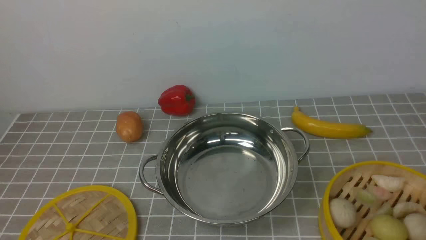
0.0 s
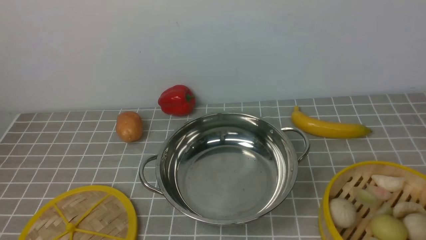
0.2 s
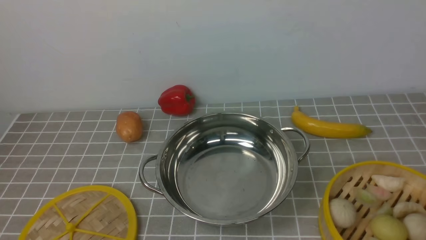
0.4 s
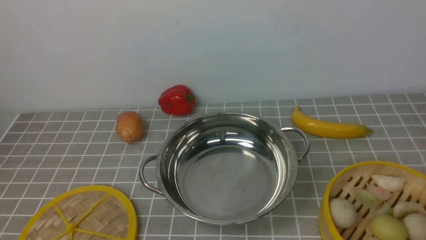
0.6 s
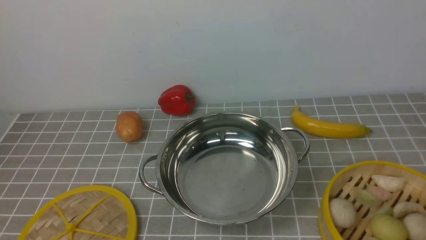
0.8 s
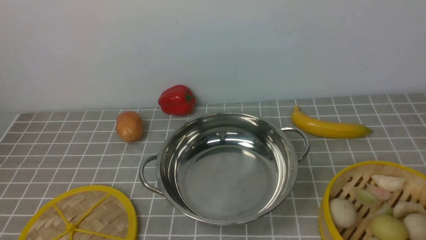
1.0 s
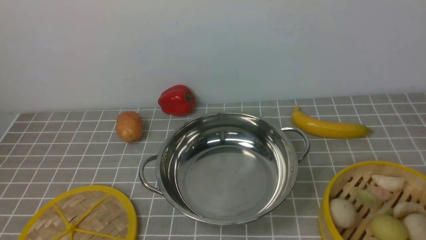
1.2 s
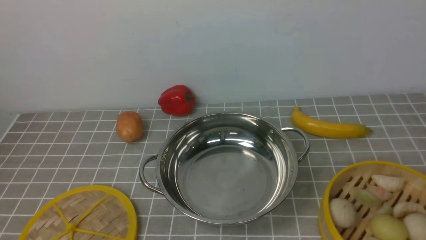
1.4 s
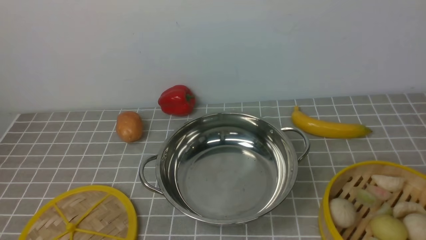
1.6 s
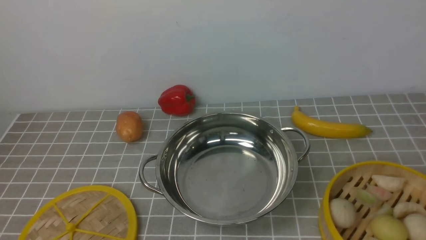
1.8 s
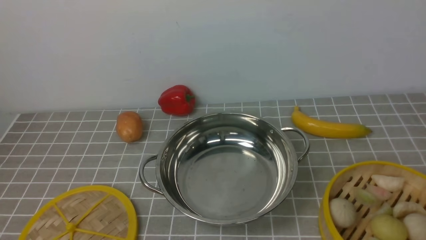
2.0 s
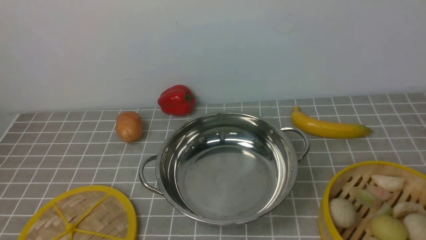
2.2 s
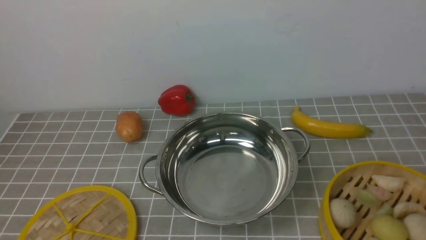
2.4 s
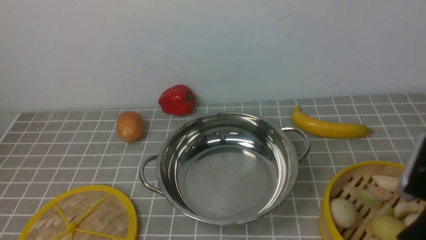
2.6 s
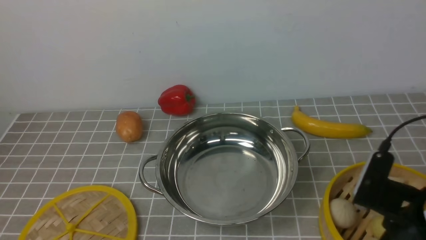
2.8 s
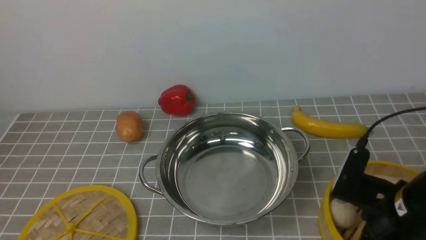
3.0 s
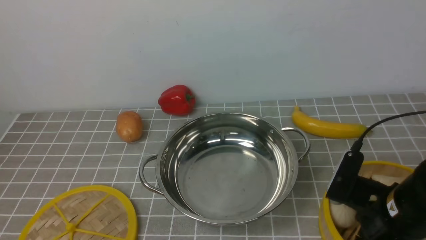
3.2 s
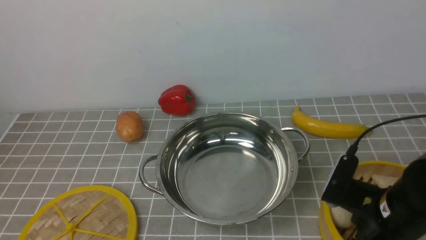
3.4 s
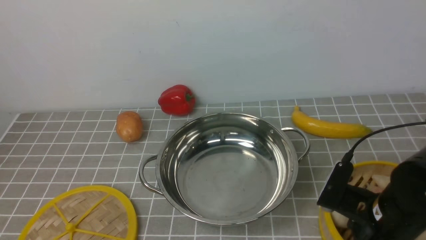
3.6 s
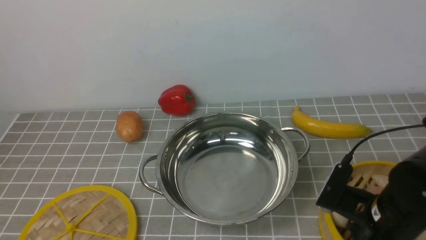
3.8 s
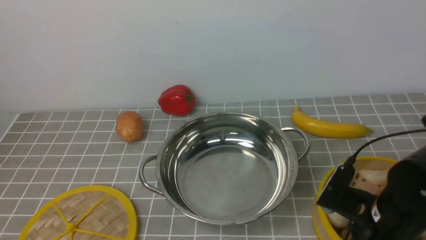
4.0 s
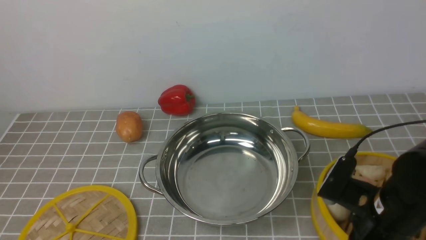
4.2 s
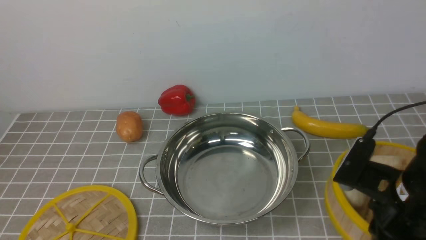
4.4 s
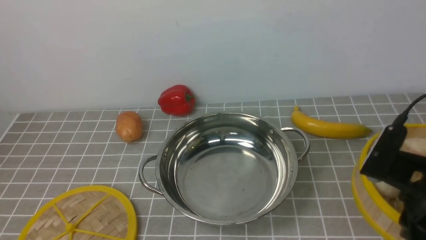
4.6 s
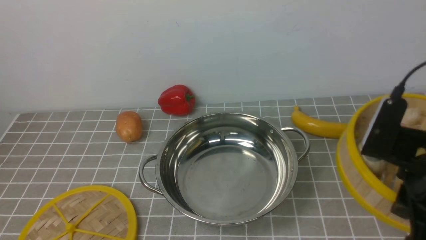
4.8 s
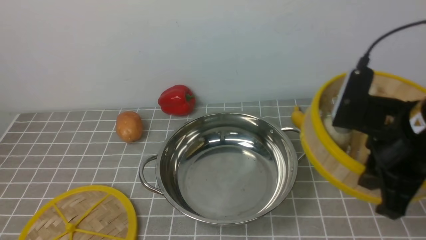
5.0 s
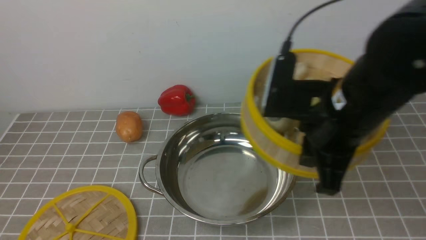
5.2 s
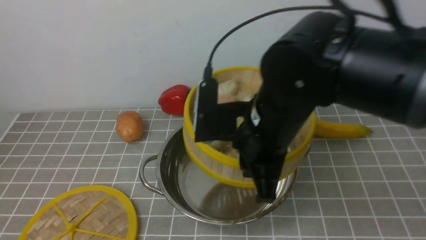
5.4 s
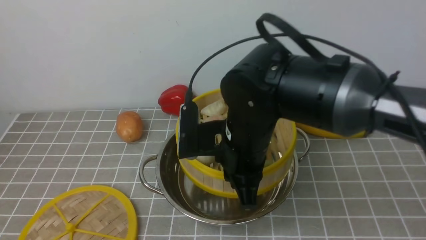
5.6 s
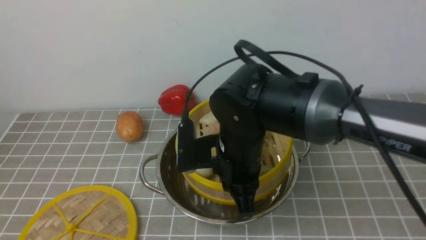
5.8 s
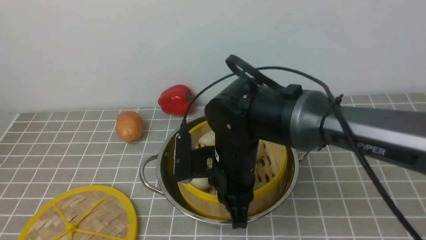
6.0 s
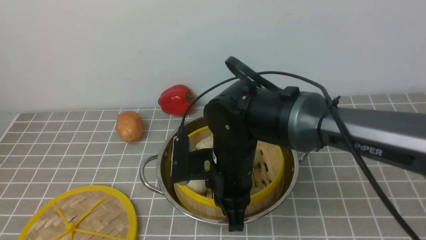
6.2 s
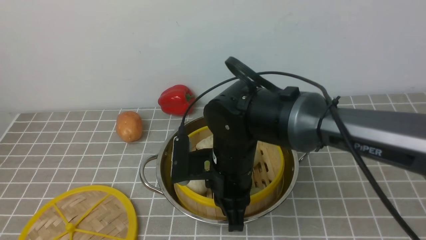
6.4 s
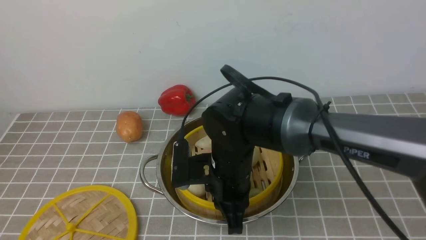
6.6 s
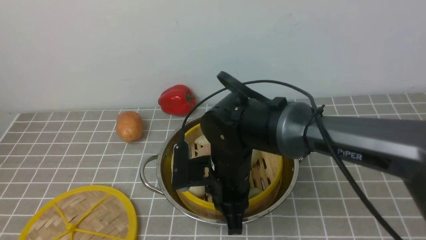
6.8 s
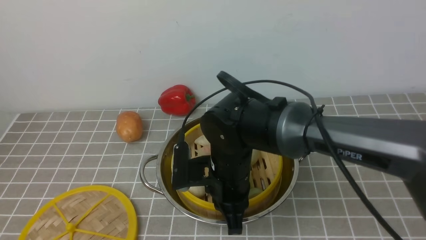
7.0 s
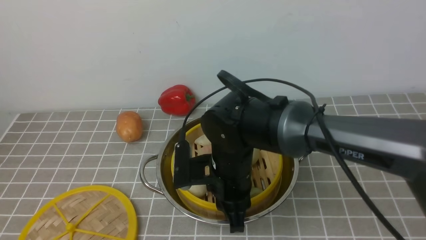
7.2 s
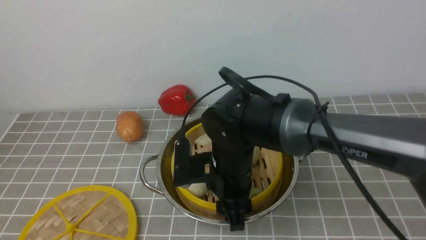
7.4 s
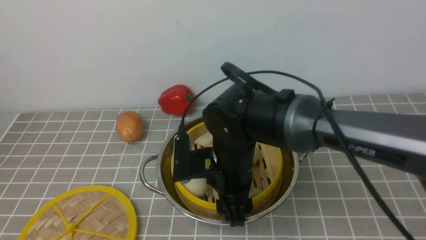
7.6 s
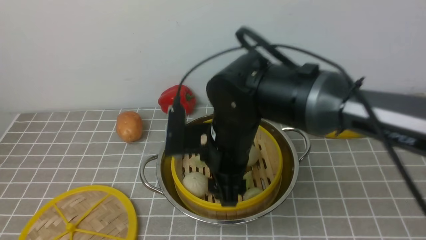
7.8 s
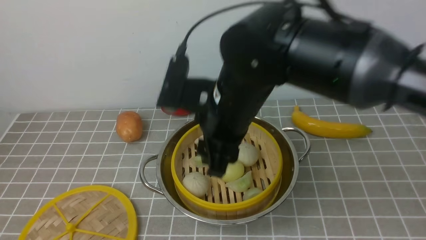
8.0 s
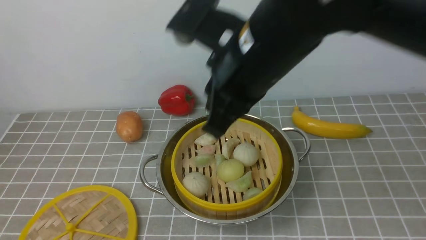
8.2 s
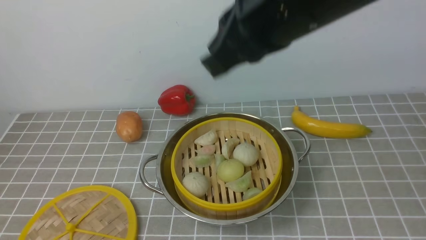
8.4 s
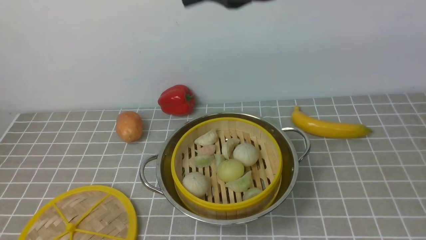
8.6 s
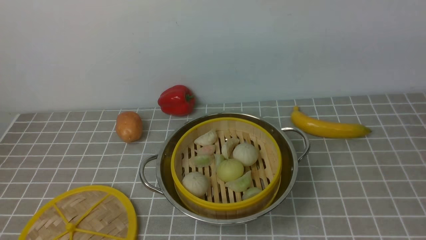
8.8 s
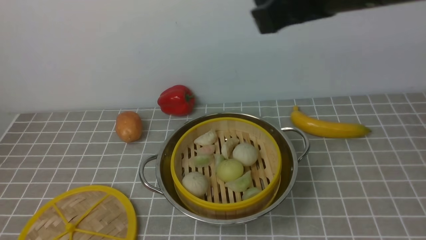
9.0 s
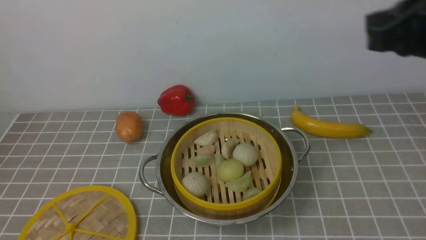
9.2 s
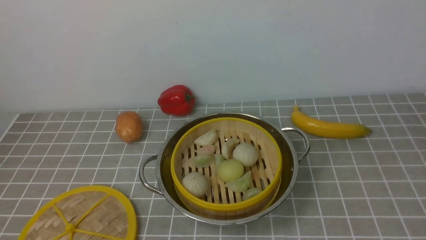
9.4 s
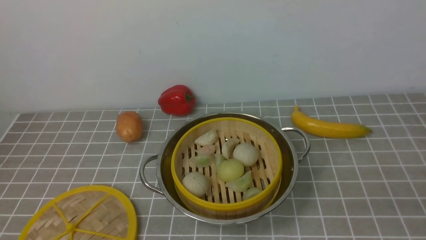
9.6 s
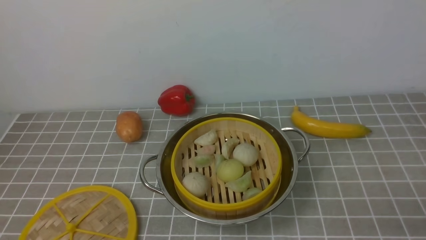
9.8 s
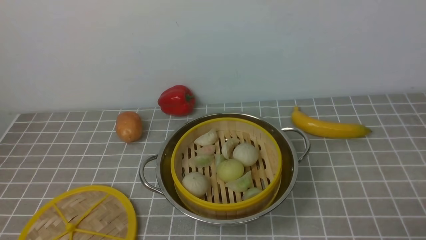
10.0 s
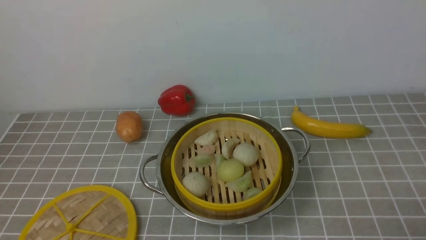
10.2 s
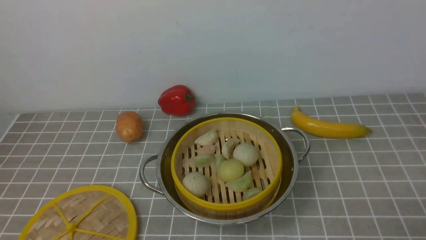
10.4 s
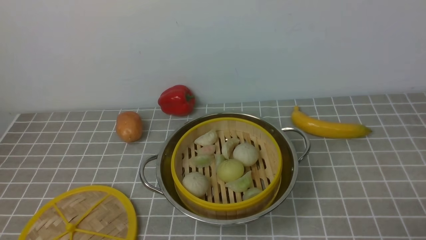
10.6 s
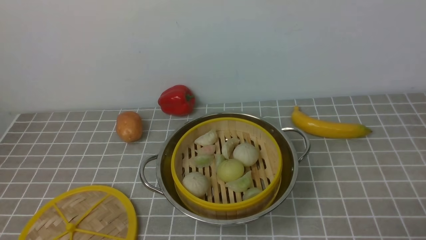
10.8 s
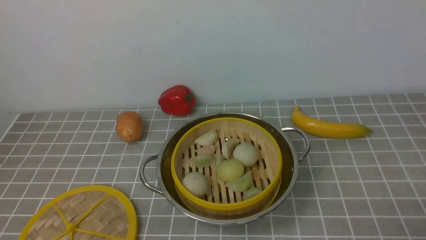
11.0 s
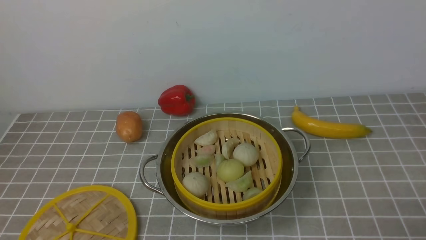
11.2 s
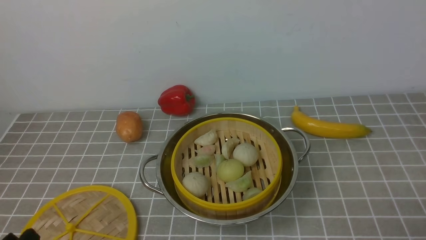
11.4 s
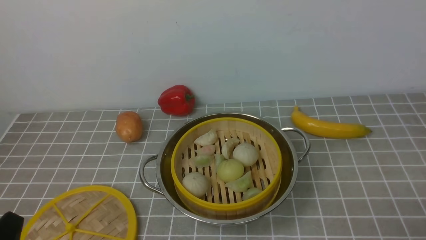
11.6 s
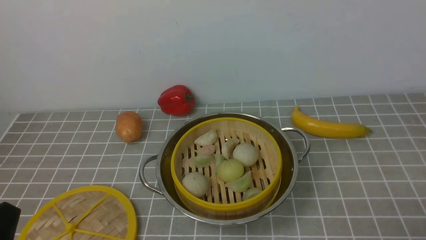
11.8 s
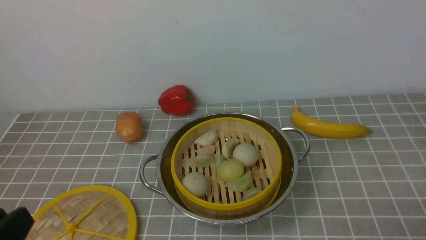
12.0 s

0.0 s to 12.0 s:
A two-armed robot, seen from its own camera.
Task of the whole recording: place the steamer in the pot on the grey tablecloth, and put the lid on the steamer.
Step, 0.0 to 4.4 s: use the right arm to lift the steamer closest to it.
Step, 4.6 to 7.6 s: use the right arm to put the steamer into the iron steamer pot in the middle.
1.6 to 3.0 s: The right gripper moves forward, downward and to the left, about 20 cm.
3.0 to 4.4 s: The right gripper closes up.
4.4 to 6.0 s: The right gripper heads to the left and forward, covering approximately 20 cm.
6.0 to 7.6 s: The right gripper opens its fingers.
7.6 to 9.0 s: The right gripper shifts about 30 cm upward and to the right, and closes.
9.0 to 10.4 s: The right gripper moves downward, to the right and backward, roughly 40 cm.
10.4 to 12.0 s: The left gripper is displaced upward by approximately 10 cm.

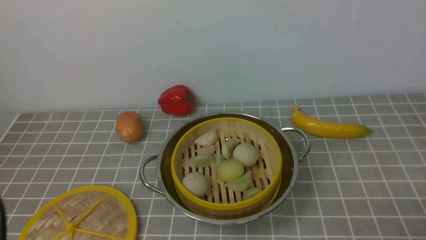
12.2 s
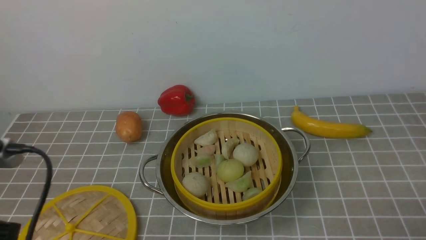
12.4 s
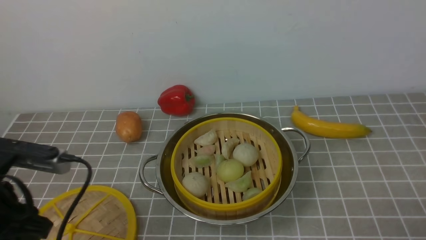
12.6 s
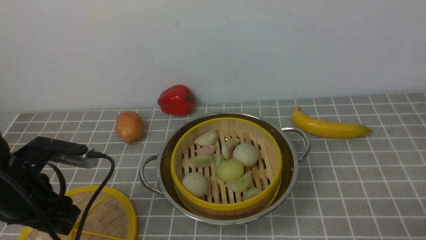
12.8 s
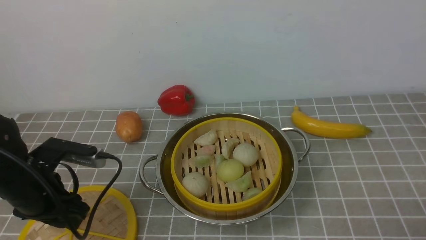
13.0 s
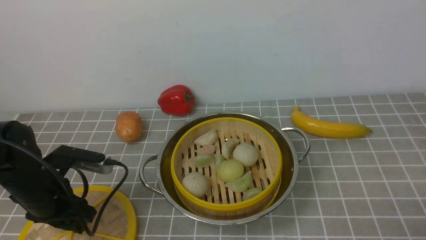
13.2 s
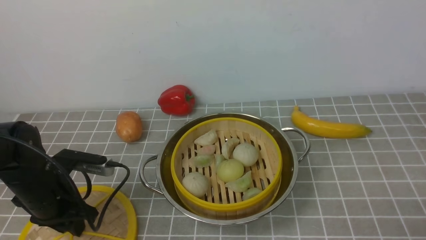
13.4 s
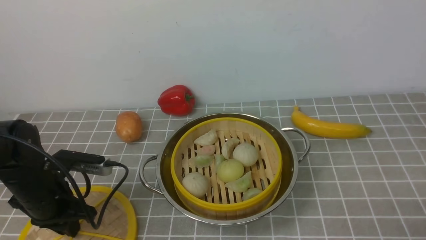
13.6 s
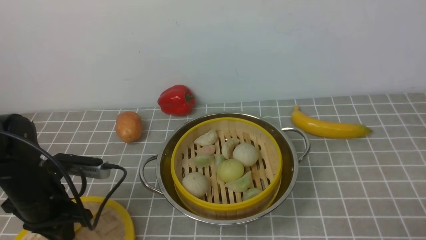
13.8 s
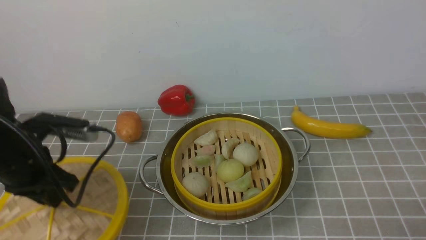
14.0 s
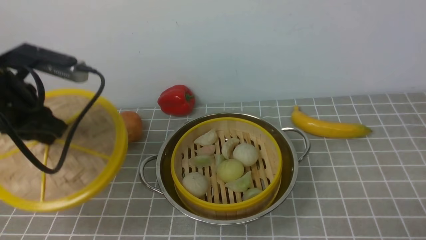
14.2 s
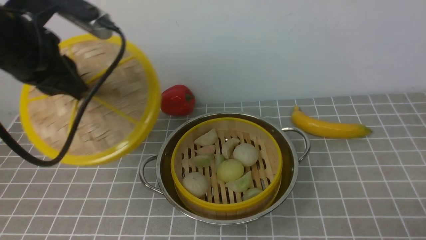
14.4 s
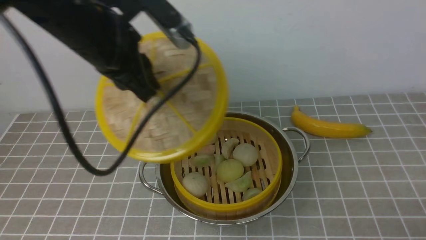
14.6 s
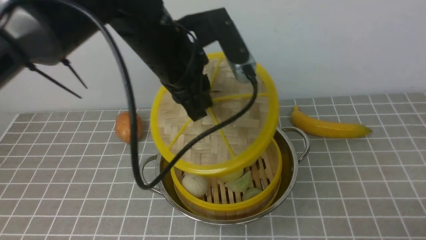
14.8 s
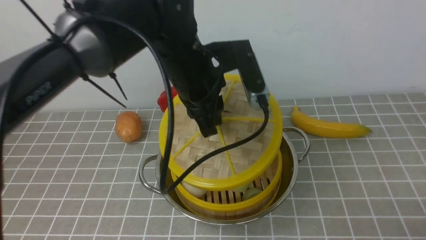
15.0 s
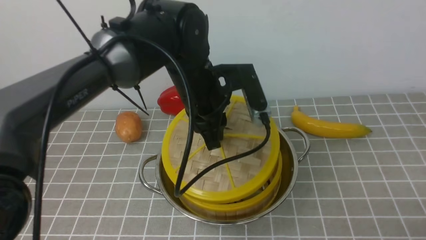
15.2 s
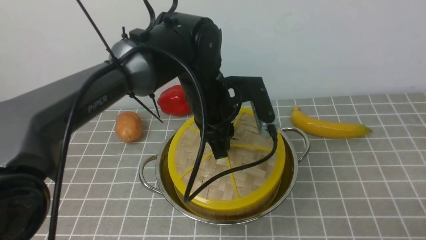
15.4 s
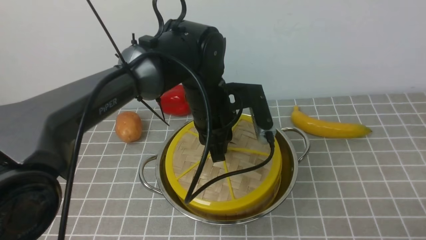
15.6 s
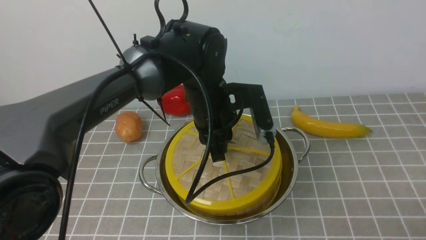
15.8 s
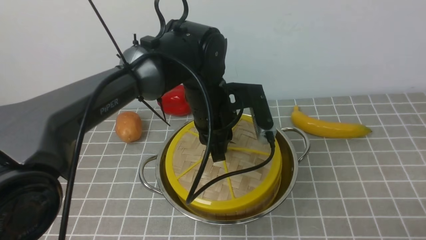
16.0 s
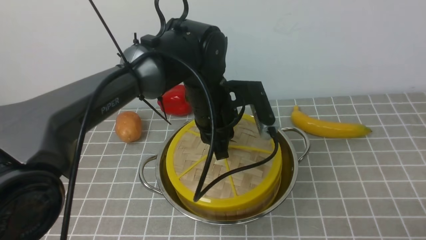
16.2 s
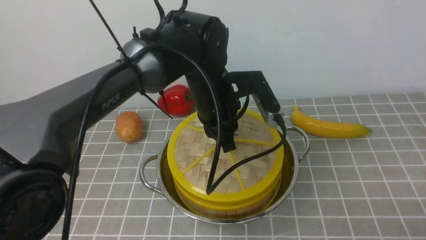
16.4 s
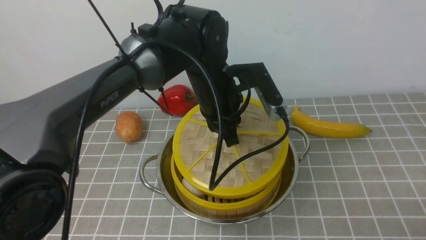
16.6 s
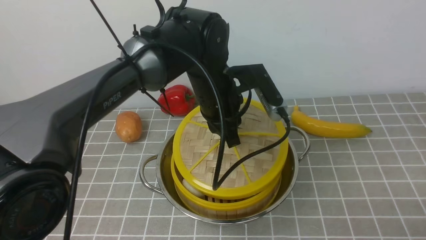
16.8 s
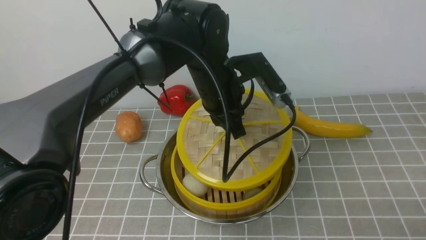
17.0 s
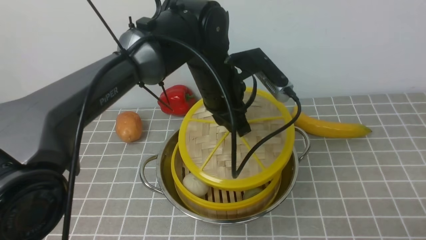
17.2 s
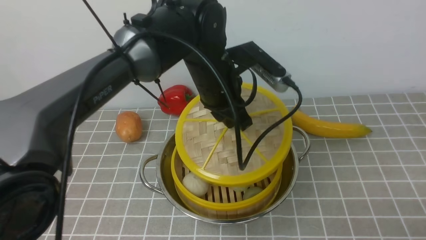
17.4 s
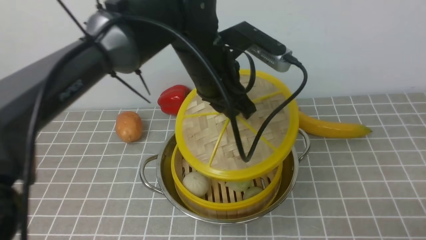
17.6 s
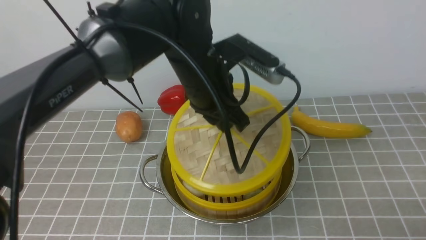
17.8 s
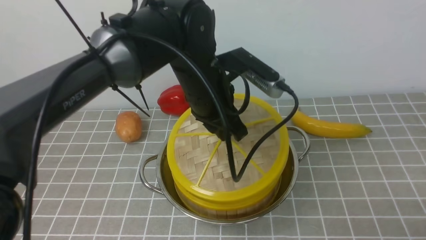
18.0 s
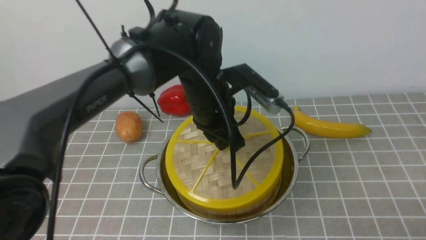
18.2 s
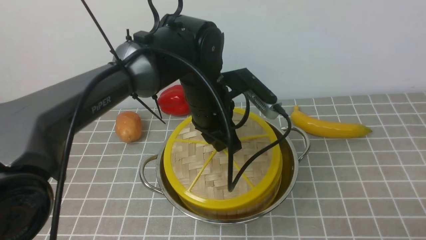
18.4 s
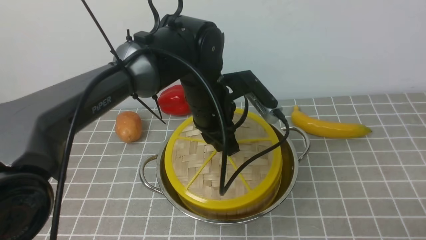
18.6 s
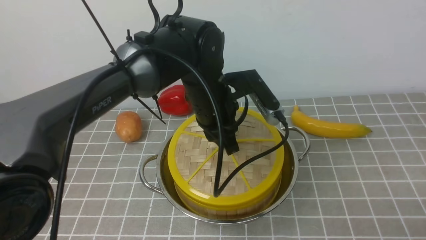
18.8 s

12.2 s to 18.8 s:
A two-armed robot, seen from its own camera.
Task of the whole recording: place the steamer in the pot on the grey tablecloth, and put the lid on the steamer.
12.2 to 13.8 s: The left gripper travels forward and downward by roughly 25 cm, and opens and closes again.
13.8 to 15.4 s: The left gripper is displaced to the right and forward by about 25 cm.
17.2 to 18.8 s: There are only small adjustments of the grippers.
